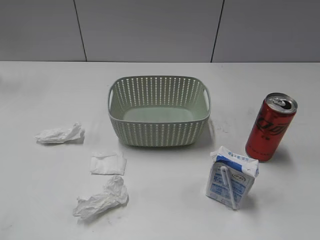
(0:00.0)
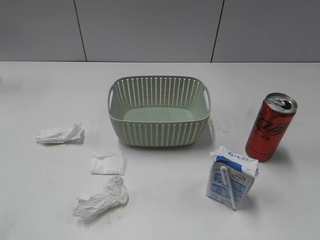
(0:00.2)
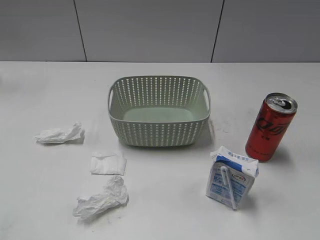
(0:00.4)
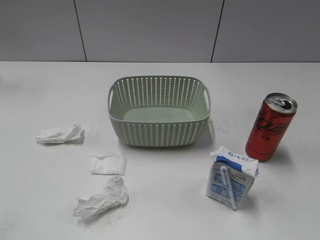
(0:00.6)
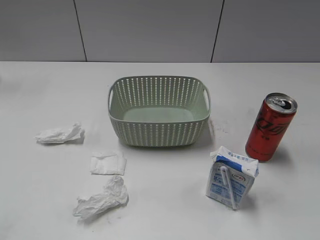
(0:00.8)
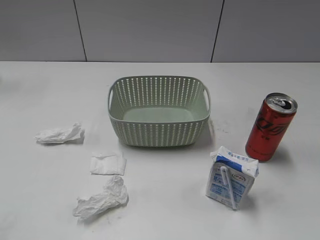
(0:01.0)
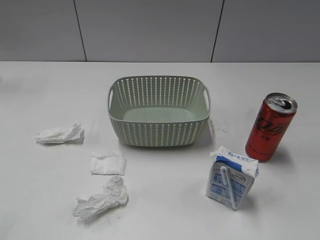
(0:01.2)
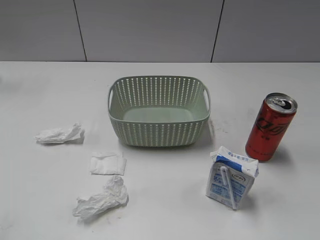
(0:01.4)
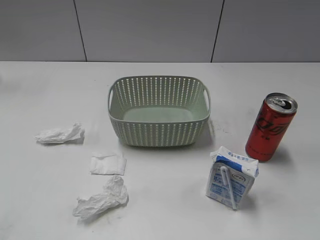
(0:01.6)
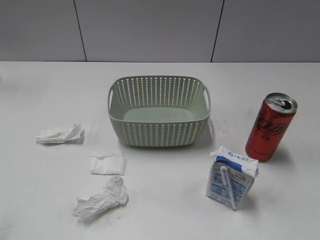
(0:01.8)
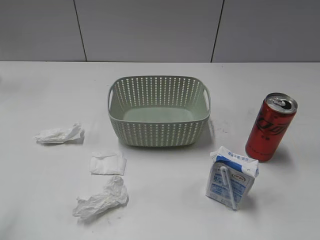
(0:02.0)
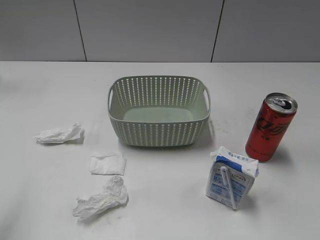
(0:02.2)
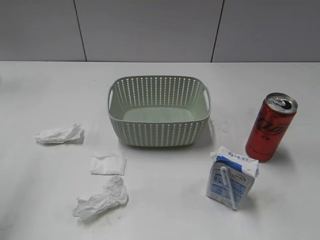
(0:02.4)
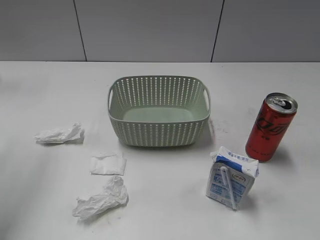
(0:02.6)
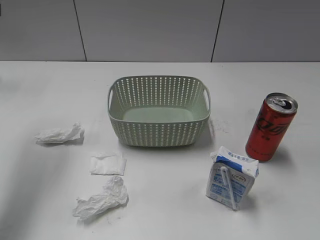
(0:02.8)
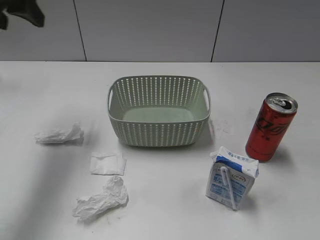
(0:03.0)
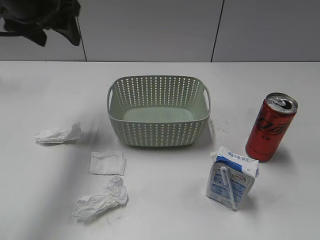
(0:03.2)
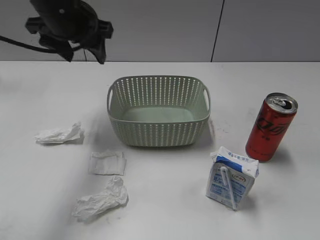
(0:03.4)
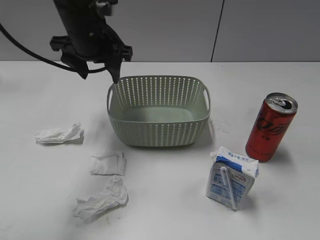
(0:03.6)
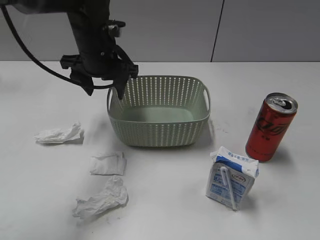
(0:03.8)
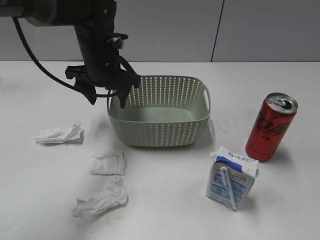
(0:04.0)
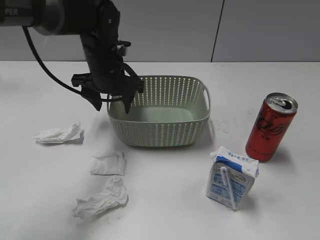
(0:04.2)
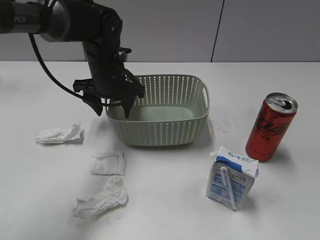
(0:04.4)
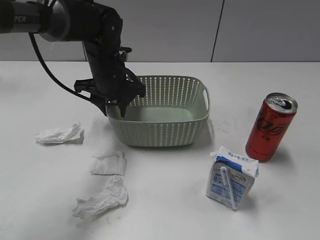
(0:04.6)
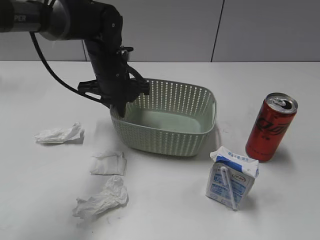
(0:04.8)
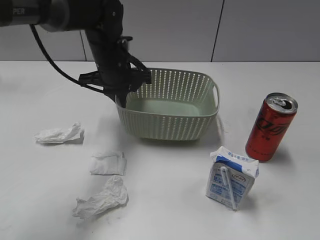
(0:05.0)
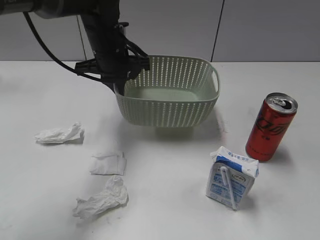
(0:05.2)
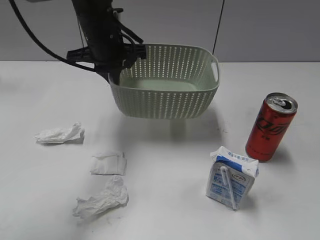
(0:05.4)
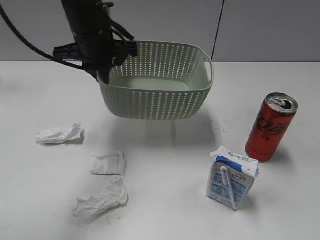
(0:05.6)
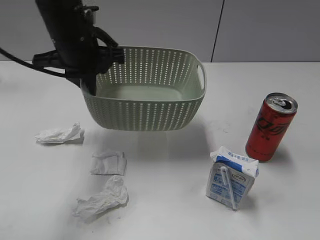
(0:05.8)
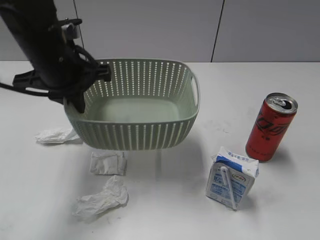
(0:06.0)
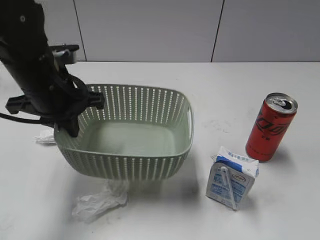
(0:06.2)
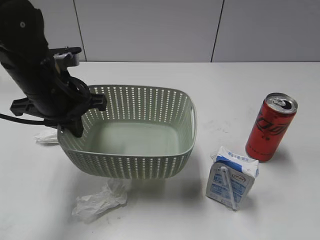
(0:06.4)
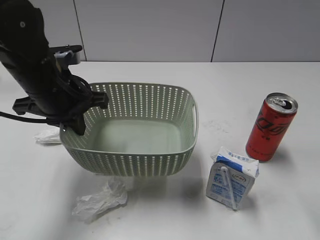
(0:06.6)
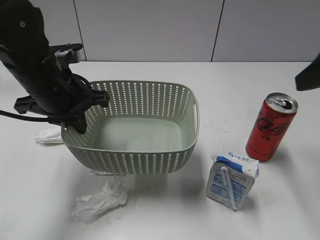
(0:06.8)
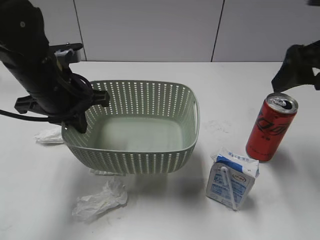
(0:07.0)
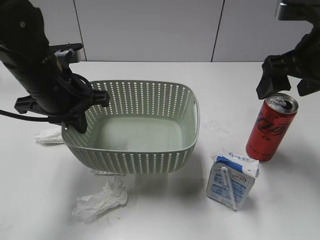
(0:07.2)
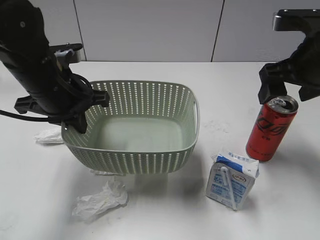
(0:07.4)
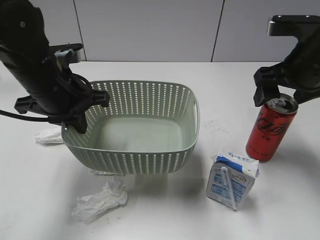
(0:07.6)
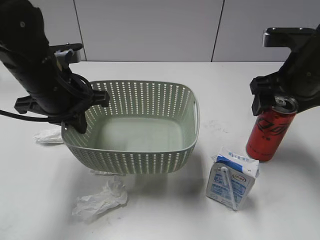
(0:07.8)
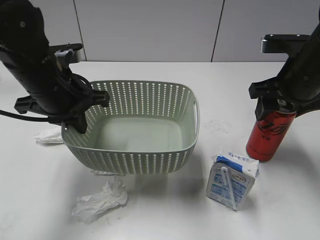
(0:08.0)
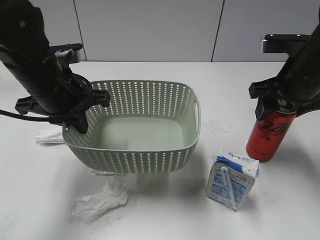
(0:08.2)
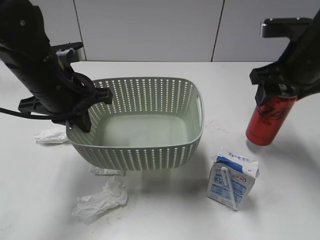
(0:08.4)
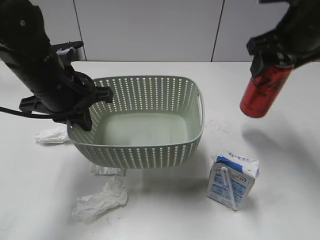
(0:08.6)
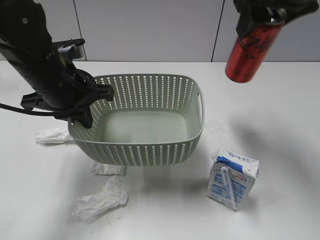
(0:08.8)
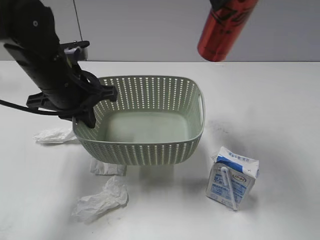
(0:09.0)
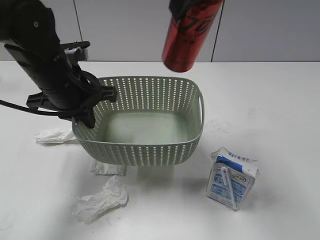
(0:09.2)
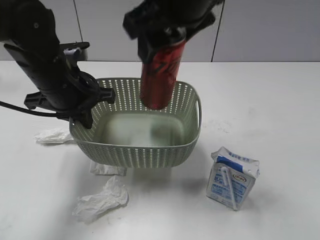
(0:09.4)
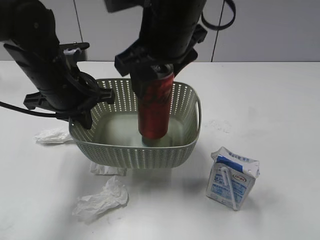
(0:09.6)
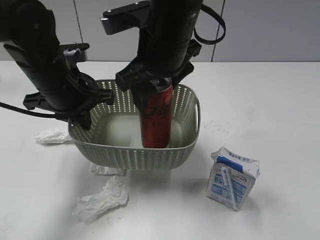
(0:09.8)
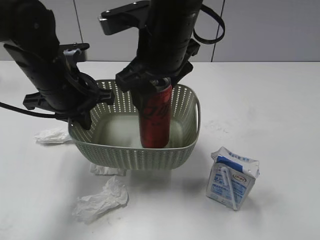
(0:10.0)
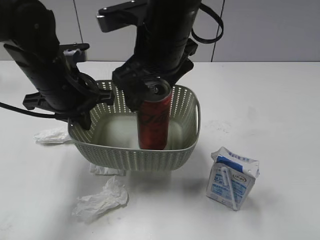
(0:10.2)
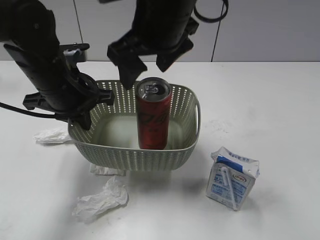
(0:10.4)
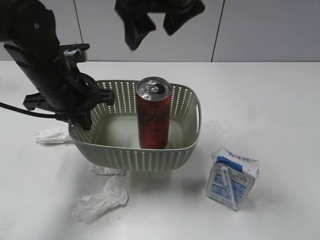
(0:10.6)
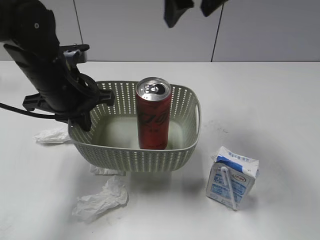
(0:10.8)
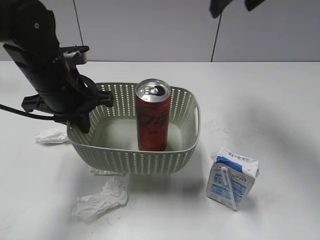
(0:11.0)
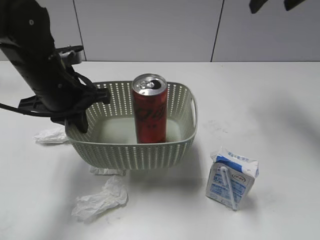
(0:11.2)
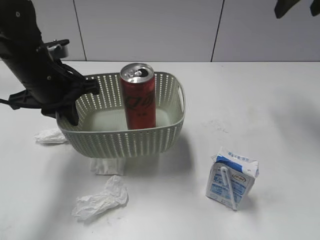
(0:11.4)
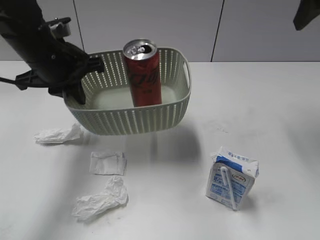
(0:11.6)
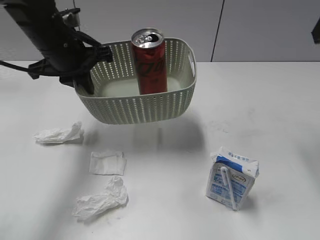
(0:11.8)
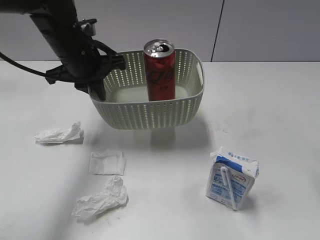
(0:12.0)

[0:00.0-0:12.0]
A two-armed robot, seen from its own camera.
Step, 0:02.8 to 0:04.8: Grasp the basket with left gripper.
Step, 0:05.0 to 0:06.6: Lift the basket with left gripper.
Step, 0:06.8 to 0:08.2: Grasp the cola can with right gripper.
Step, 0:08.4 to 0:10.4: Place the cola can in the basket with right gripper.
0:01.6 to 0:03.0: The left gripper travels forward by roughly 30 cm.
0:03.0 to 0:04.4: The left gripper is displaced downward and to the right by some 25 cm.
0:04.4 to 0:06.0: The left gripper shifts some 15 cm backward, upward and to the left, and closes up.
0:06.0 to 0:07.6: The right gripper goes about 30 cm forward, and opens.
0:07.6 to 0:09.0: The right gripper is displaced upward and to the left by some 20 cm, and closes its fingers.
0:09.0 to 0:10.4: The right gripper heads to the left and downward, covering approximately 10 cm, and opens up.
0:10.4 to 0:12.0: The left gripper shifts about 5 cm forward, while the right gripper heads to the right and backward, covering some 30 cm.

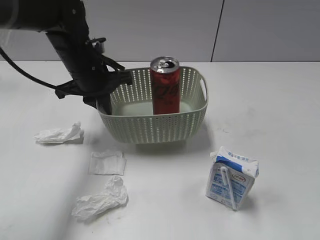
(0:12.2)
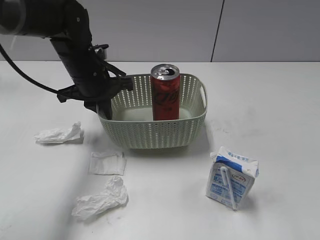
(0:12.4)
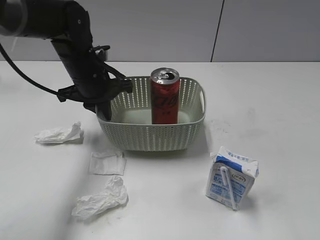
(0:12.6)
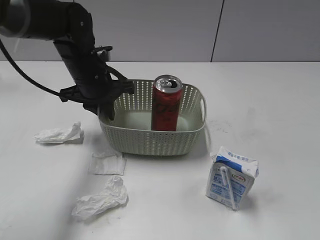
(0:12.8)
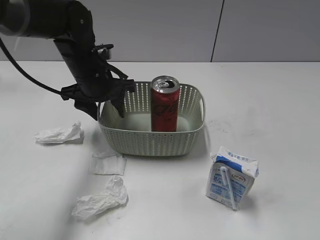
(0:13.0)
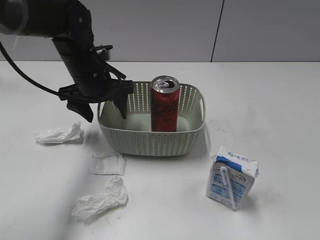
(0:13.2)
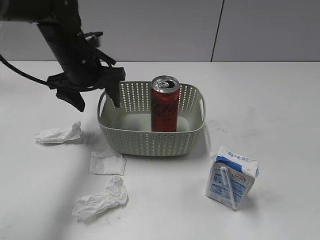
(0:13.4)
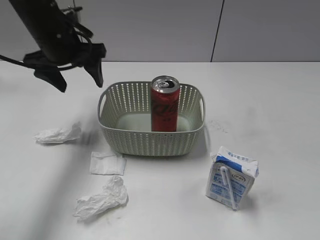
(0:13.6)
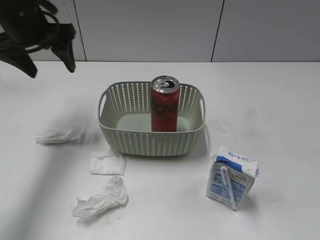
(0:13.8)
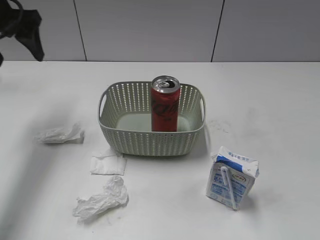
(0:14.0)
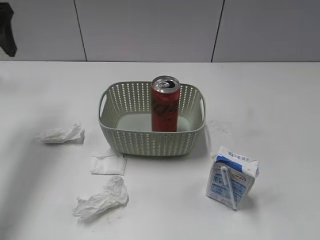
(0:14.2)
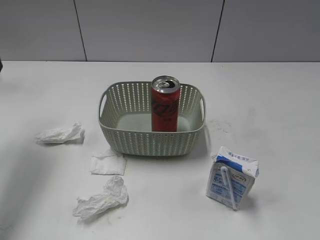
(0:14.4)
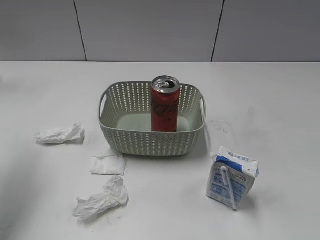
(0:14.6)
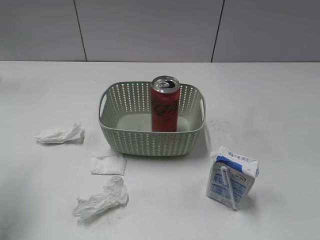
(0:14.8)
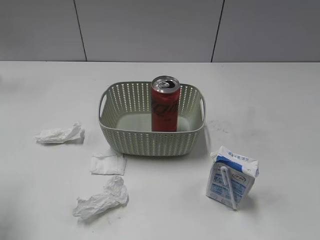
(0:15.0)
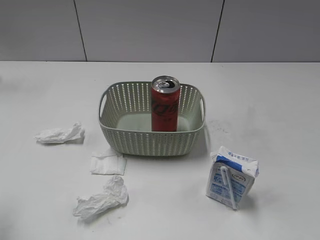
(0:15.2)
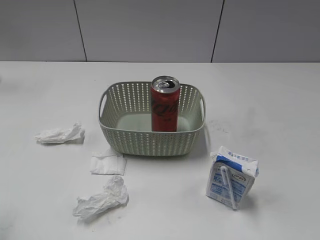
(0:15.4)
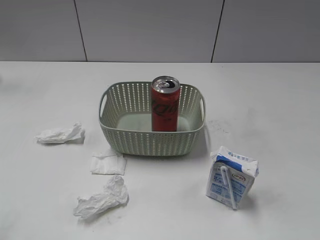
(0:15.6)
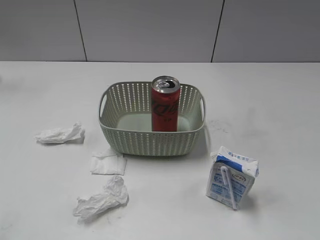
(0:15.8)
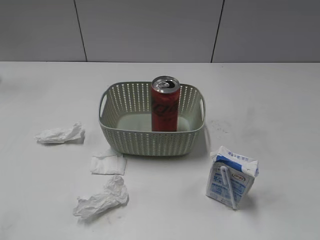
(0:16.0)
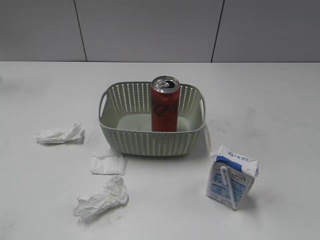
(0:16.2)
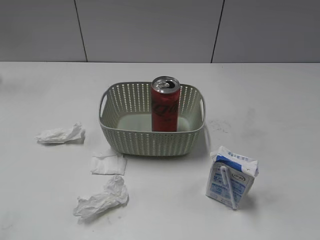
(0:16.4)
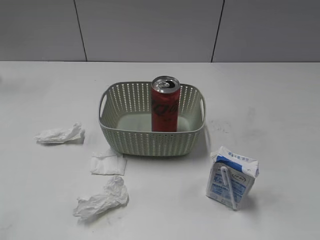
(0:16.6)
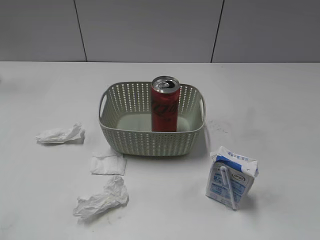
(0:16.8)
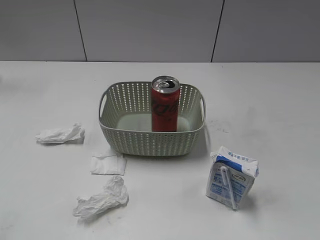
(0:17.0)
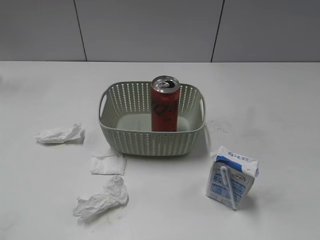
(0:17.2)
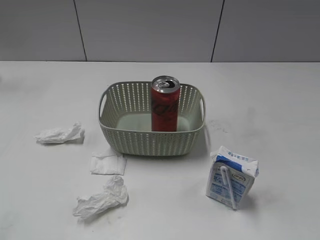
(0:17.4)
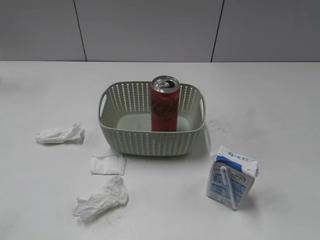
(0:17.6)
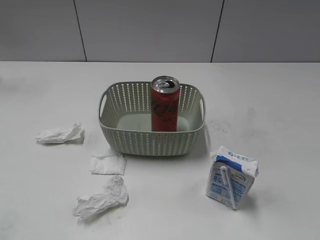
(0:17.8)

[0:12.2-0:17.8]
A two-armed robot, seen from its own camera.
0:12.2 to 0:13.6: The right gripper moves backward, some 10 cm, while the left gripper is displaced upward and to the left by some 10 cm, and opens its fingers.
0:13.6 to 0:15.0: The left gripper goes some 25 cm backward and to the left.
0:15.0 to 0:16.4: The left gripper travels backward by about 15 cm.
